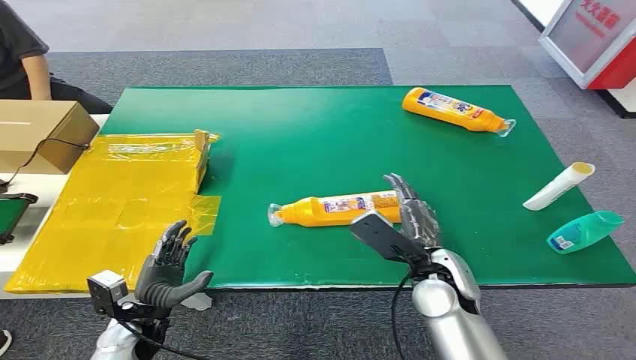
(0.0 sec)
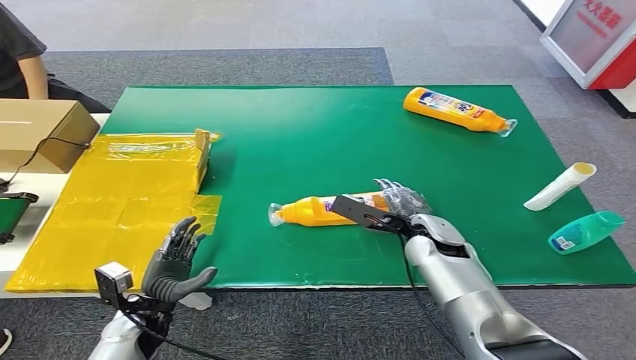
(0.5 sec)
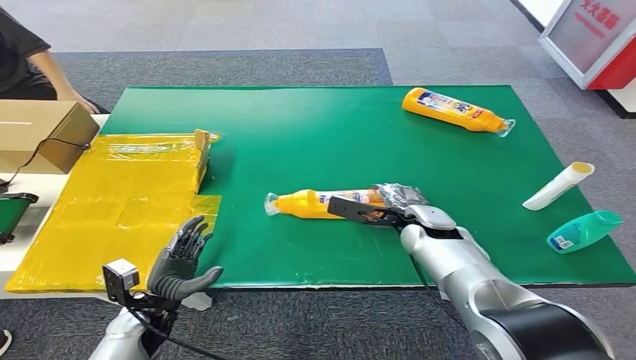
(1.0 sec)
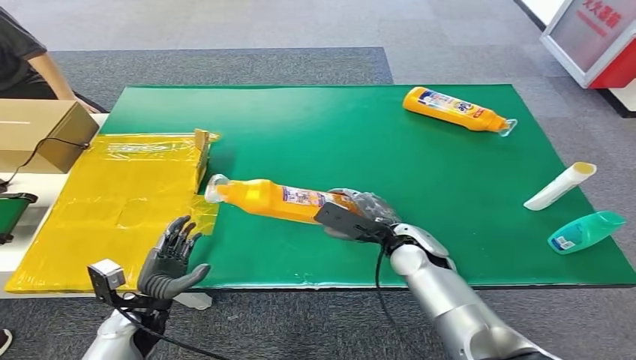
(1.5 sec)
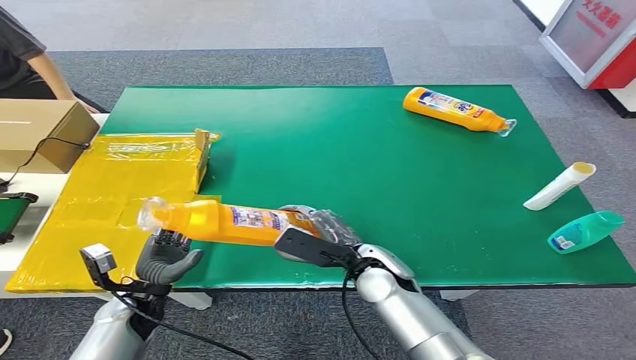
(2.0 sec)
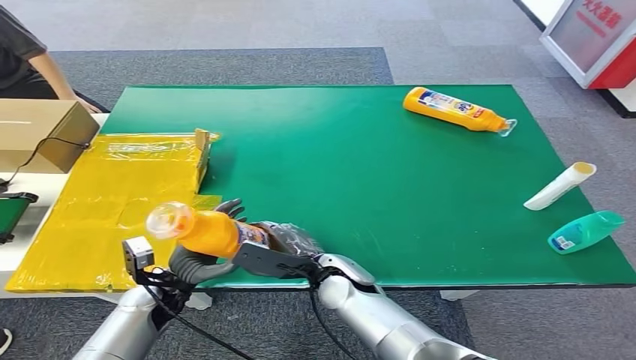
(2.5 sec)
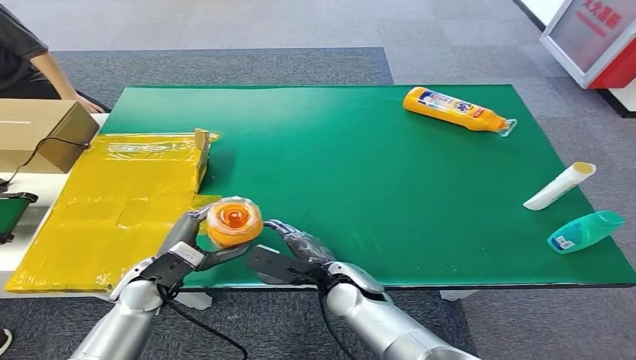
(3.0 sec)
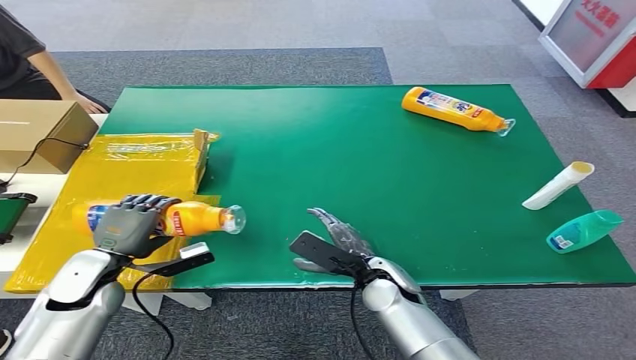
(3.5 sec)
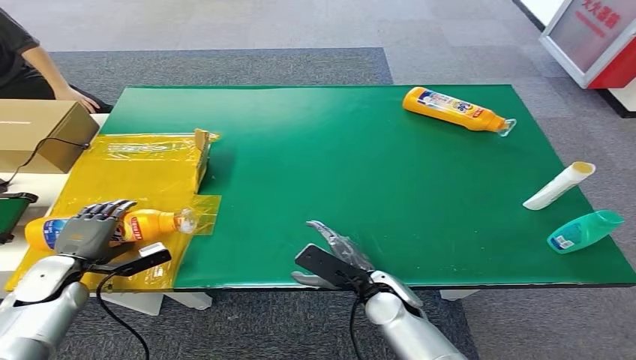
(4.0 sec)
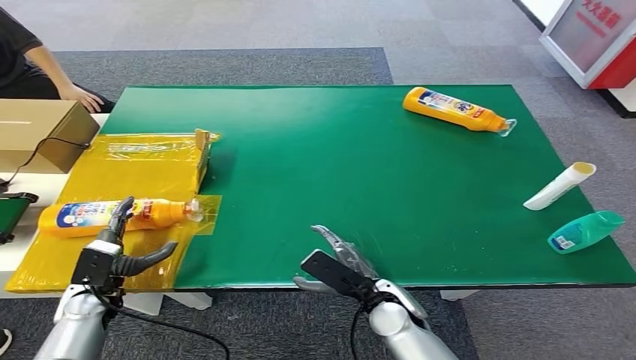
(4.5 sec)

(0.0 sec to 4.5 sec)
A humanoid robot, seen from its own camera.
Step, 0.0 sec - 1.5 sec: Pick up the bottle from the table.
Step, 2.0 sec - 4.5 sec: Turn the bottle to the front side.
2.0 sec - 4.5 sec: The right hand is displaced backward and downward by about 10 cm, while the left hand swings left and right, roughly 20 cm each way, with 2 reversals.
